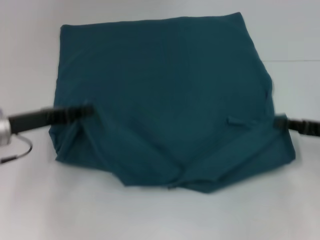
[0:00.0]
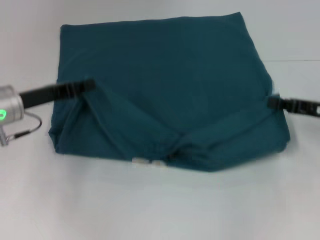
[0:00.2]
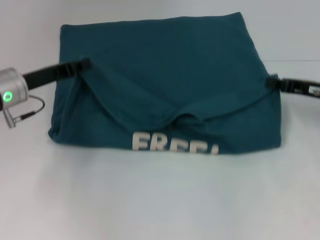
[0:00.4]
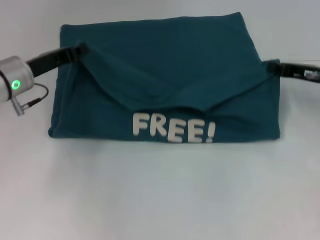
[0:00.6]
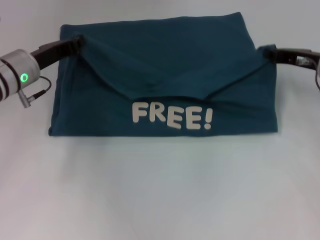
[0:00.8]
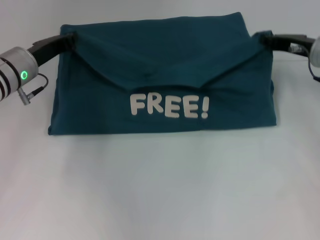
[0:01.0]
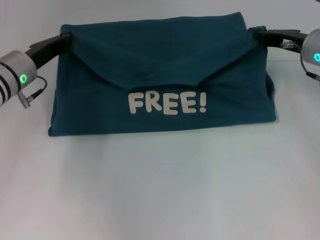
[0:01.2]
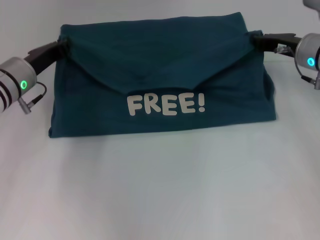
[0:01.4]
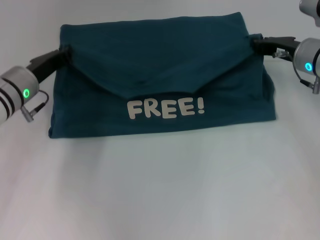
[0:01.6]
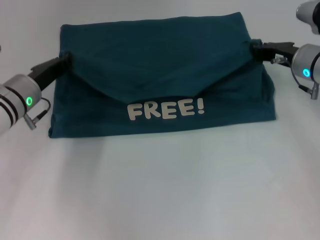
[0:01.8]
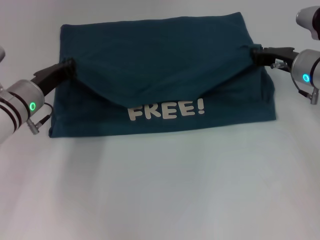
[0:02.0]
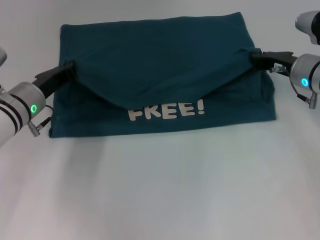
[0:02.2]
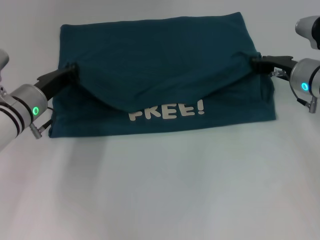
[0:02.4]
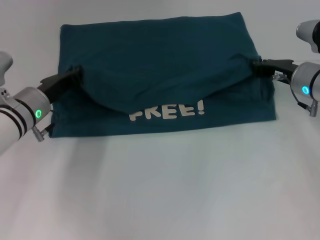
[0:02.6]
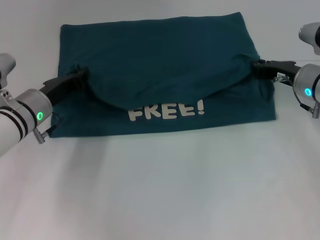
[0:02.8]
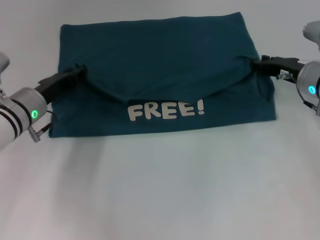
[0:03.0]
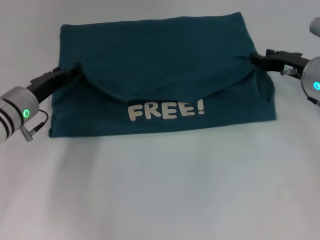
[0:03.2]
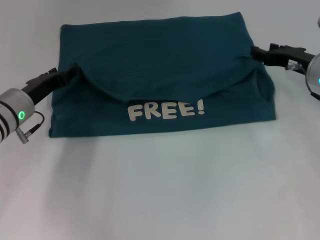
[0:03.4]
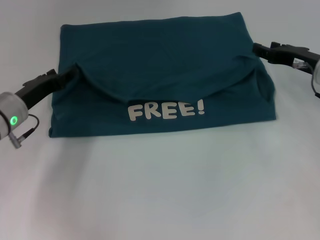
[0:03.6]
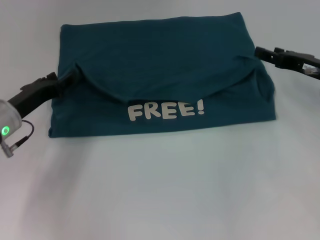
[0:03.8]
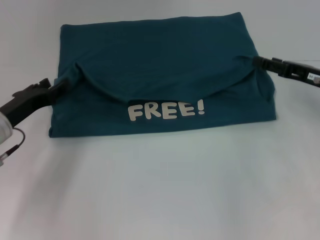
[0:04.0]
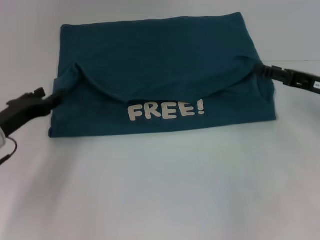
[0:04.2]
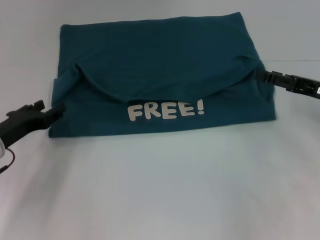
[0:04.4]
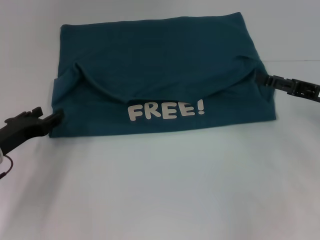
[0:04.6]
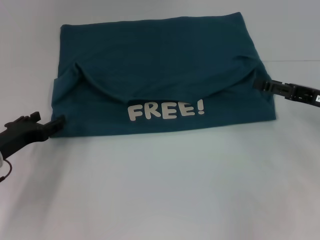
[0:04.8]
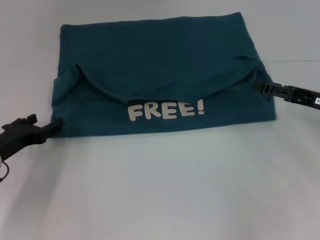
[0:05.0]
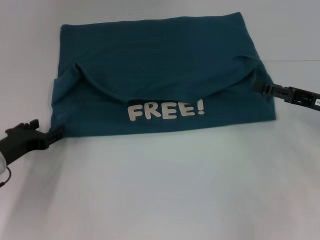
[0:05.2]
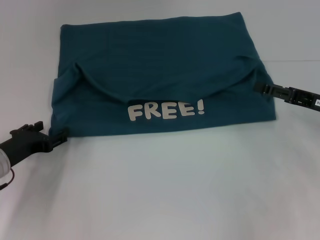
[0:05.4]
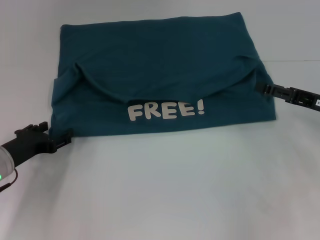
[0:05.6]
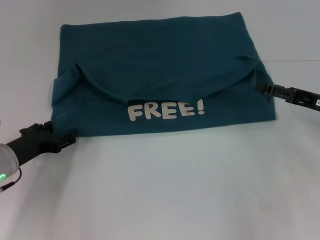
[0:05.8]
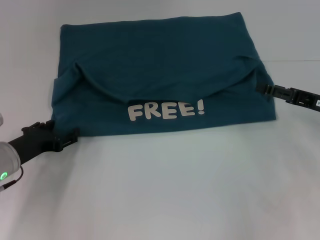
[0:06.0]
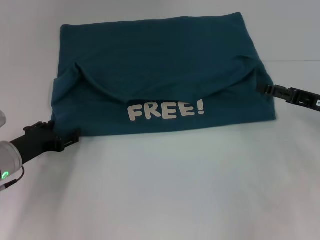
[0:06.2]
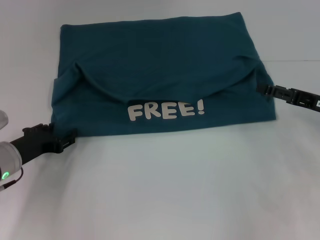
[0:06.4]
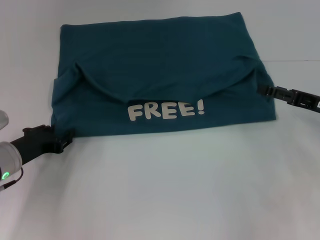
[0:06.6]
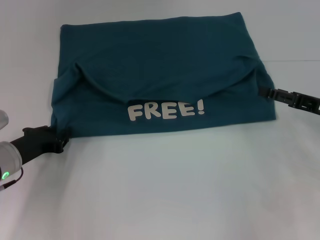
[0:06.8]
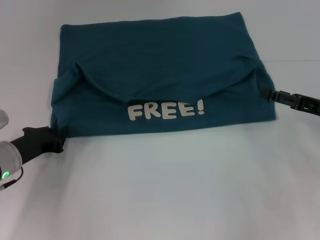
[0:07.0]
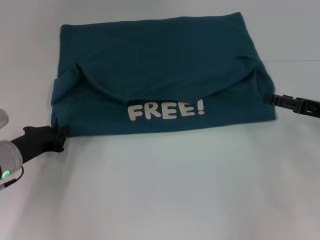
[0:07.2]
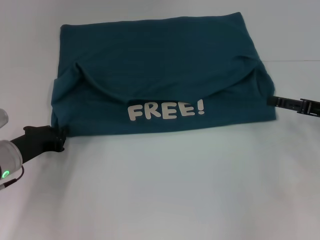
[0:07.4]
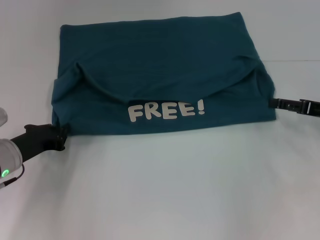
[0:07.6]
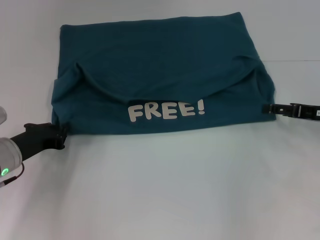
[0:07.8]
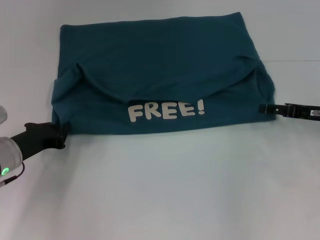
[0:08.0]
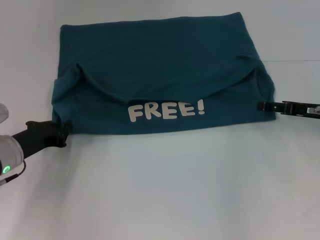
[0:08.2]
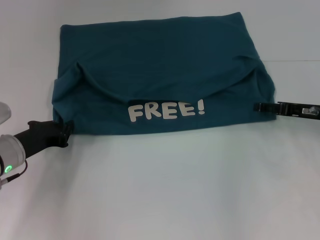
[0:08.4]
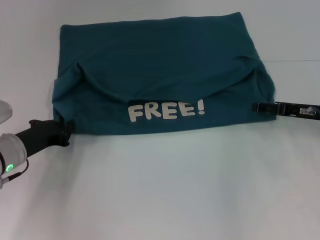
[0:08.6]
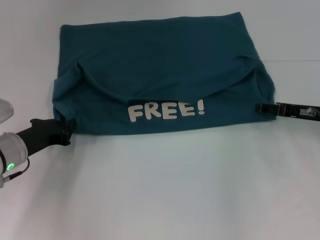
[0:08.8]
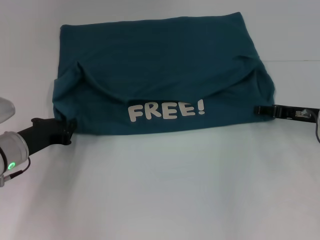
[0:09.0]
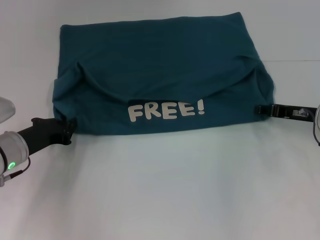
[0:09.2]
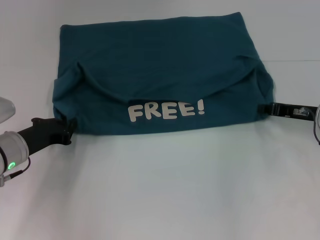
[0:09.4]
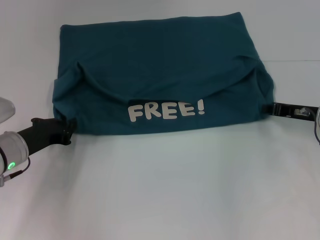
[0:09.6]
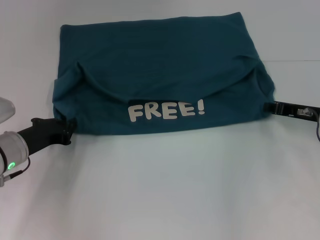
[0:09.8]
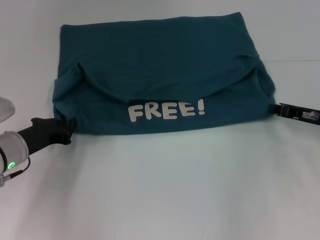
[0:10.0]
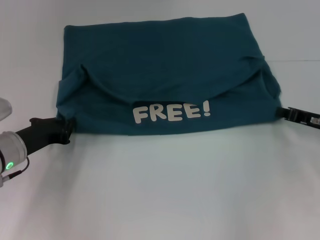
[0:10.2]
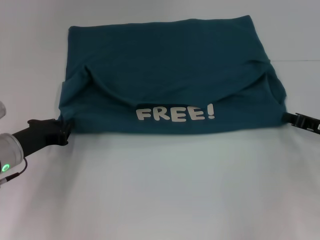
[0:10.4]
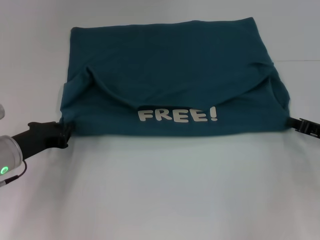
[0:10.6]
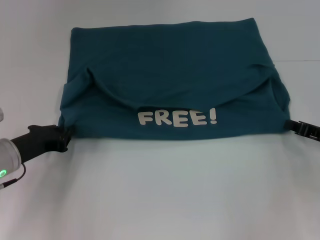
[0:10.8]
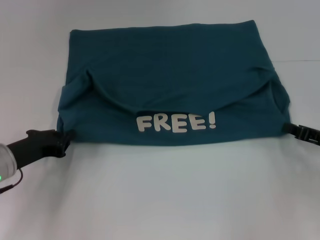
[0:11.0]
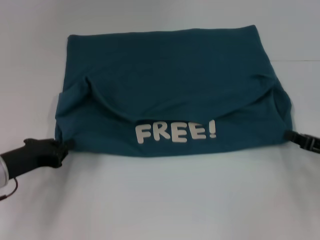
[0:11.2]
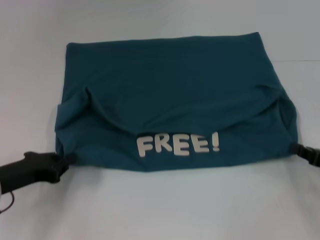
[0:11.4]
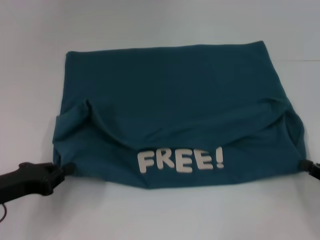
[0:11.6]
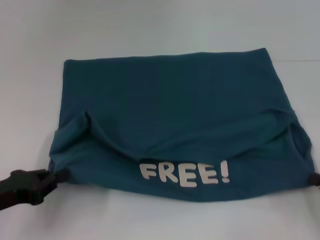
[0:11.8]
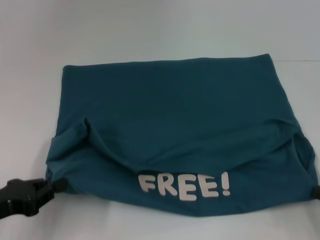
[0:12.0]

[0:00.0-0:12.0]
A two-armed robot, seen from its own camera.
Step, 0:00.0 to 0:03.2: Fold the clothes to the left.
Step, 0:00.0 to 0:03.2: Fold the clothes to the right.
Step, 0:03.4 to 0:12.0: Pull the clothes with your left hand.
Step, 0:03.4 to 0:12.0: Pull the clothes with your right hand.
0:00.0 to 0:01.6: The right gripper is displaced forward and to the left by about 15 cm. Meanwhile the left gripper is displaced forward by approximately 10 cm.
0:01.6 to 0:03.0: The grippers make only small movements.
0:03.0 to 0:04.4: The left gripper travels backward and to the left by about 10 cm, and opens. The right gripper travels backward and to the right by roughly 10 cm, and opens.
0:04.4 to 0:06.0: The grippers move only a little.
0:06.0 to 0:07.6: The left gripper closes its fingers.
0:07.6 to 0:09.0: The right gripper moves approximately 5 cm.
0:09.0 to 0:10.4: The right gripper moves some 5 cm, and closes.
0:10.4 to 0:12.0: The two grippers go some 15 cm backward.

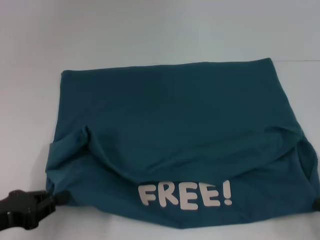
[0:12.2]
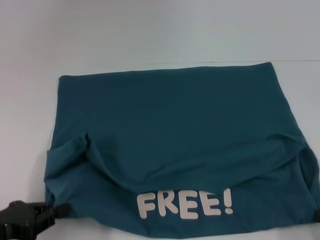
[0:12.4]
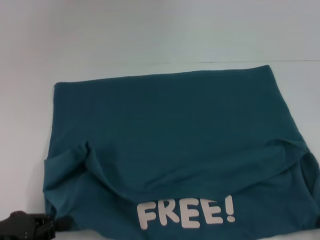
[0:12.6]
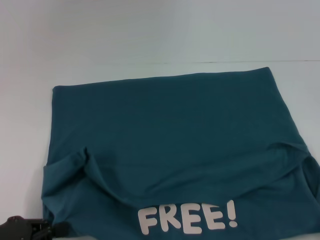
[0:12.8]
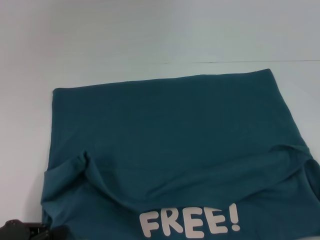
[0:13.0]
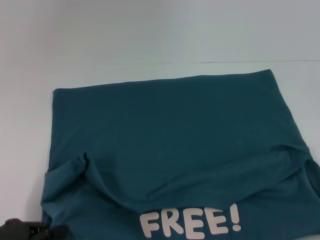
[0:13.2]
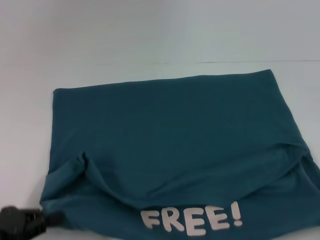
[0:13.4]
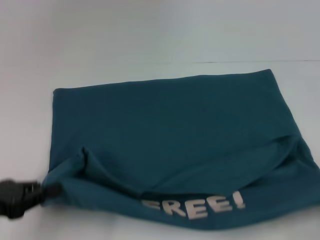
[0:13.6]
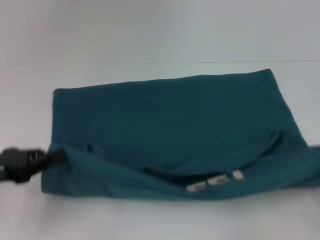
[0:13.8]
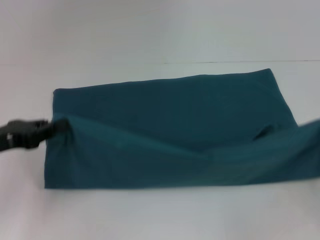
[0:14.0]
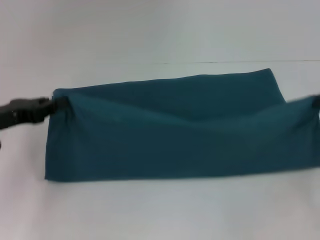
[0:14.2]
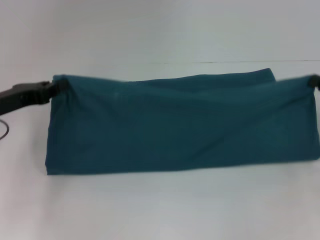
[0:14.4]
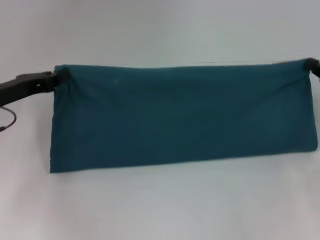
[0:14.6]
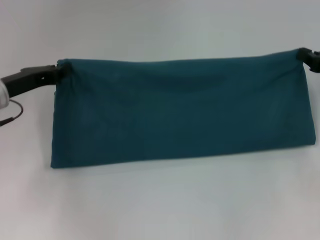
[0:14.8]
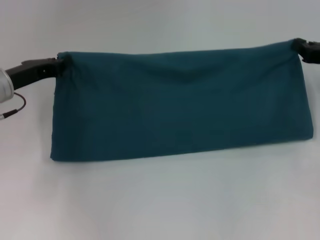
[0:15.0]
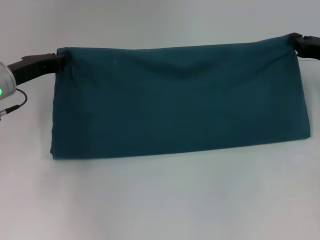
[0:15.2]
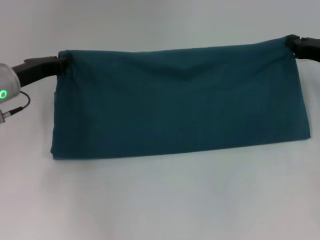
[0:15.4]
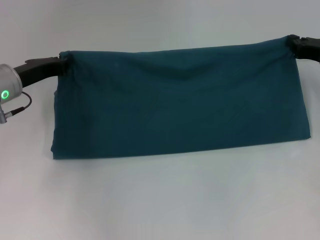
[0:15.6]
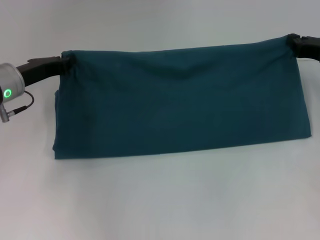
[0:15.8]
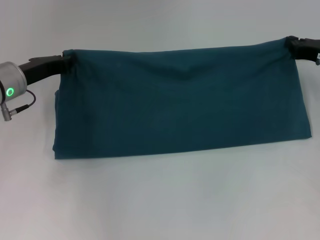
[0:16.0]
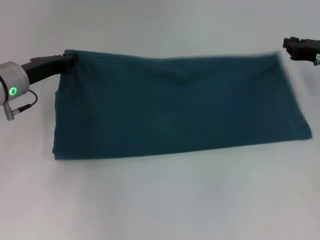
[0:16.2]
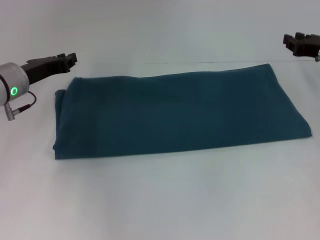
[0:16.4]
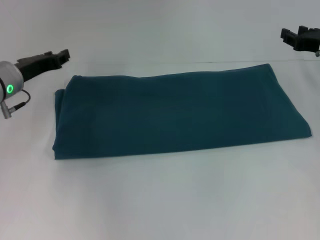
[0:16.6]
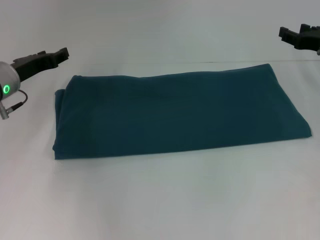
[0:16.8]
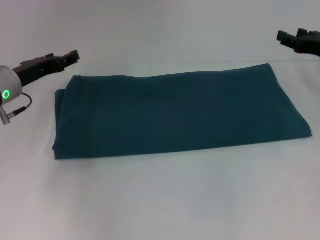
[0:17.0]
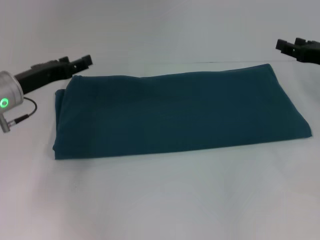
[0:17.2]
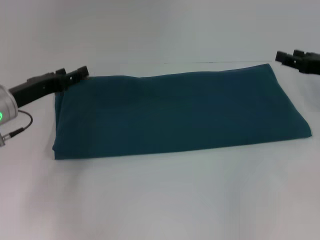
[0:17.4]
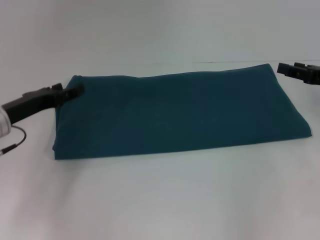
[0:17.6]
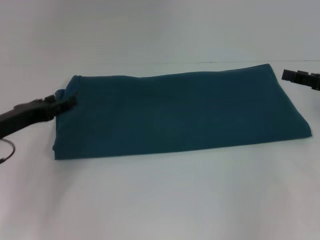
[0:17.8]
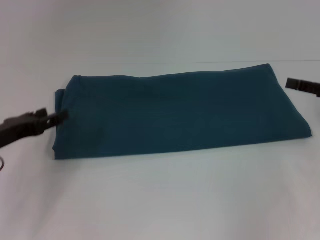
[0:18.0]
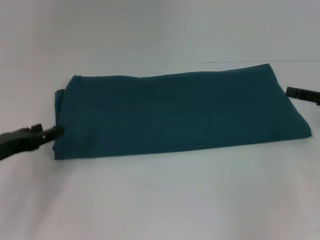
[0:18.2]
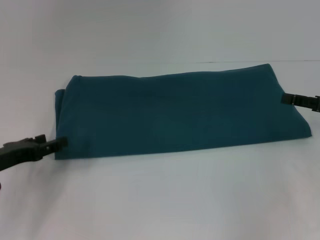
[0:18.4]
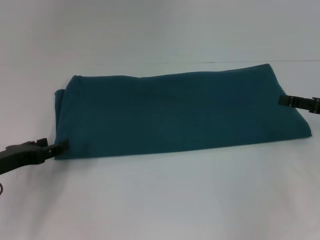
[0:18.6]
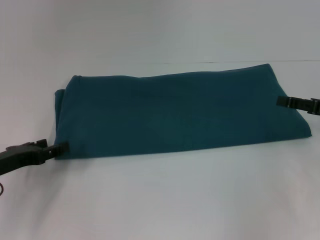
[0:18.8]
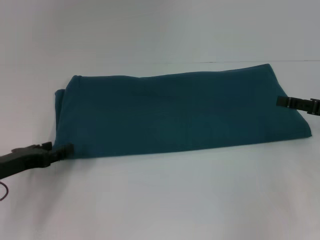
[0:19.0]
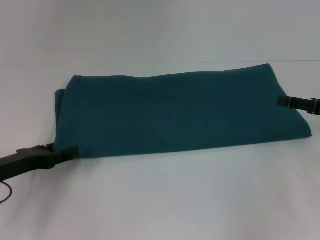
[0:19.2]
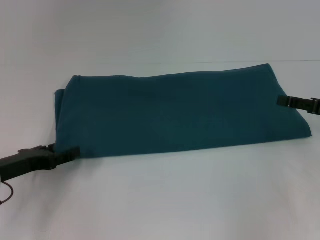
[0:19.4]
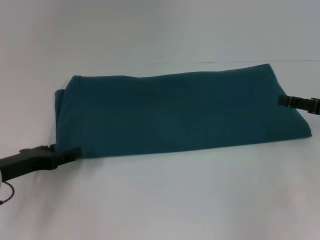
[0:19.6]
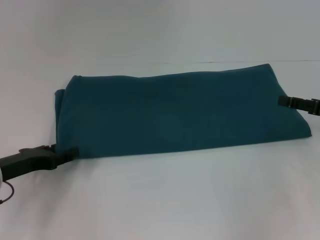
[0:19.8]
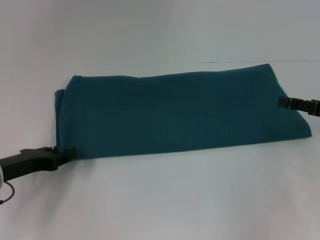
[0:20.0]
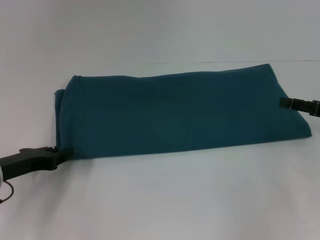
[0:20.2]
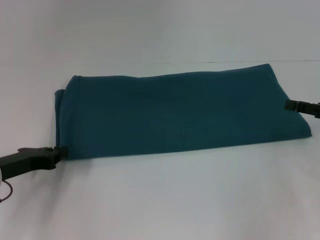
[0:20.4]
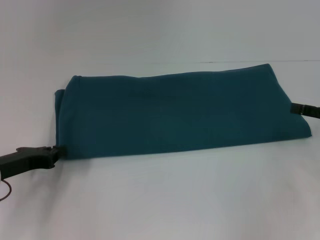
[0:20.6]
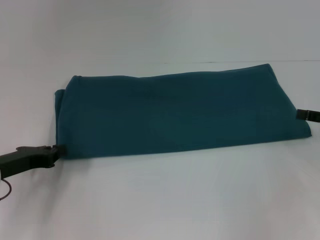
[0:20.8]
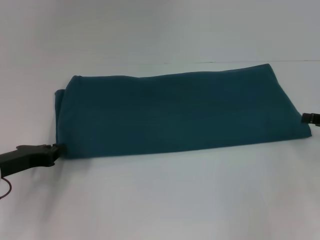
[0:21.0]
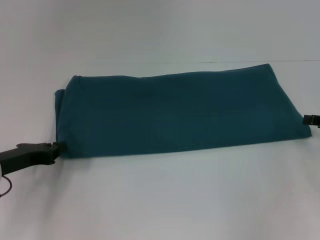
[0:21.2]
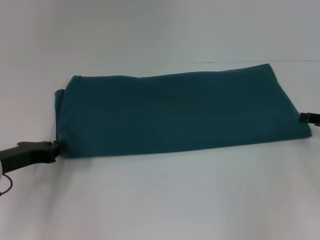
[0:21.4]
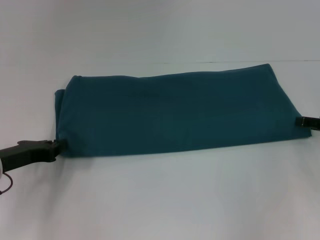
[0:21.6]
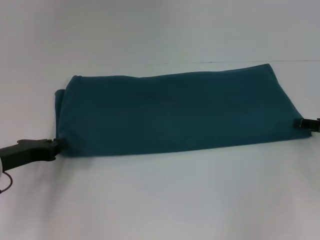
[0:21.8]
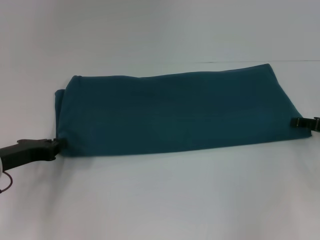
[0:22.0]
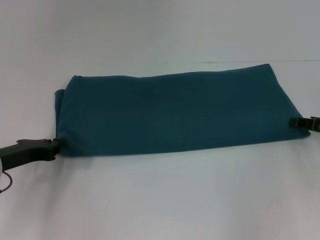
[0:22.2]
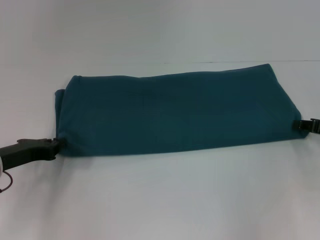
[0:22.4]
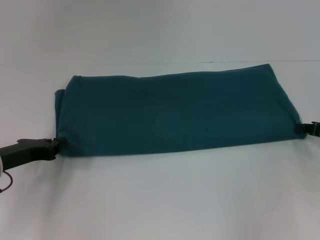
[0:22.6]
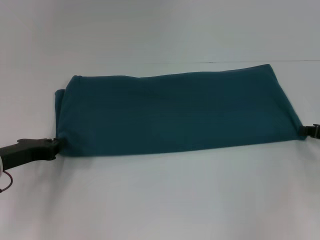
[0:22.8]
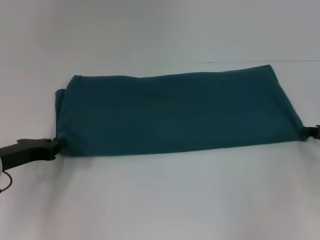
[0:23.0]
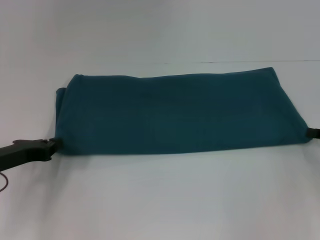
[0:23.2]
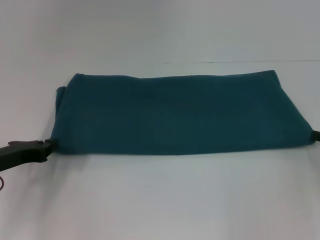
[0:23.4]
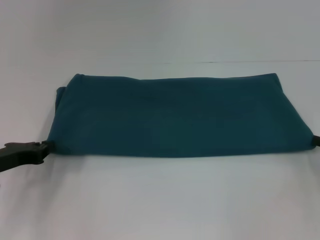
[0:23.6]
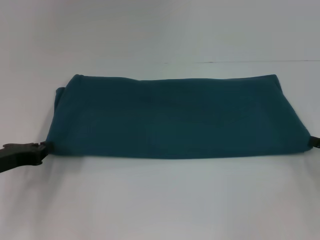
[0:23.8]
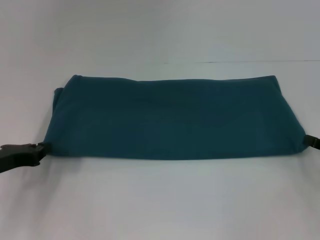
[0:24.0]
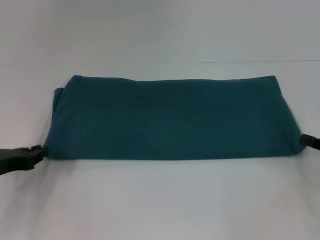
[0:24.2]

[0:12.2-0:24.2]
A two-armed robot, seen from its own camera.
Step, 0:12.2 to 0:16.6: Fold the clothes to the right.
0:12.2 to 0:13.8: The left gripper ends up about 5 cm from where it was. The right gripper shifts by some 5 cm.
0:13.8 to 0:15.2: Both grippers travel together forward, some 20 cm.
0:15.2 to 0:16.6: The right gripper opens.
0:16.6 to 0:18.2: Both grippers move backward, about 10 cm. The left gripper opens.
0:18.2 to 0:19.8: The grippers move only a little.
0:19.8 to 0:21.2: The left gripper closes up.
0:22.6 to 0:24.2: The right gripper shifts roughly 5 cm backward.
